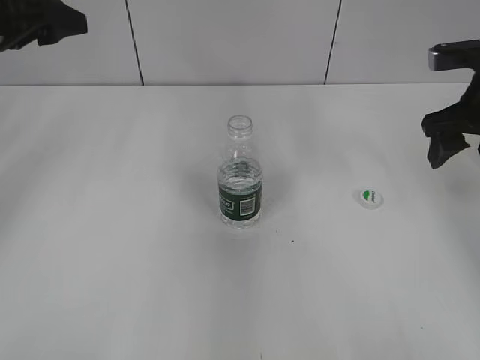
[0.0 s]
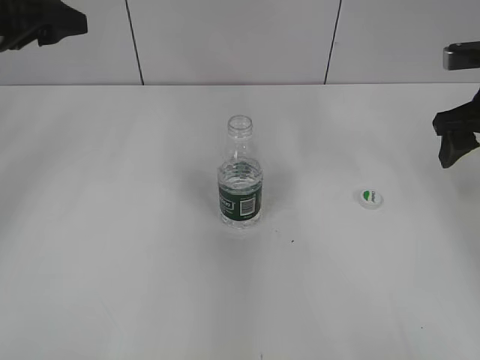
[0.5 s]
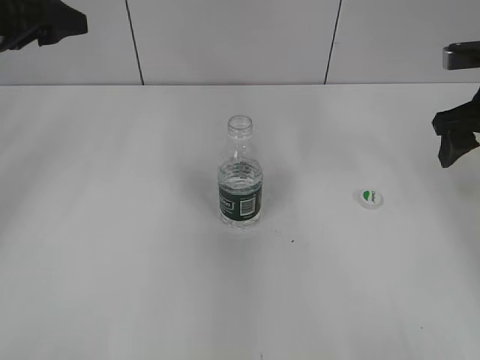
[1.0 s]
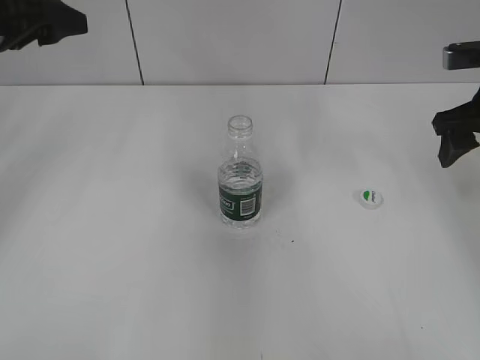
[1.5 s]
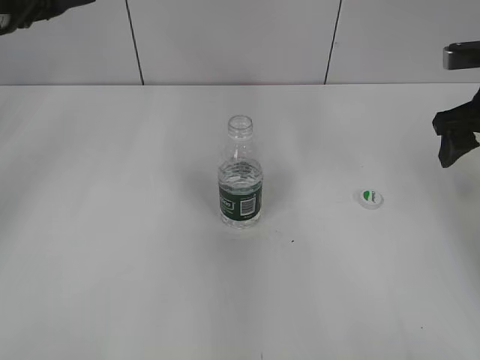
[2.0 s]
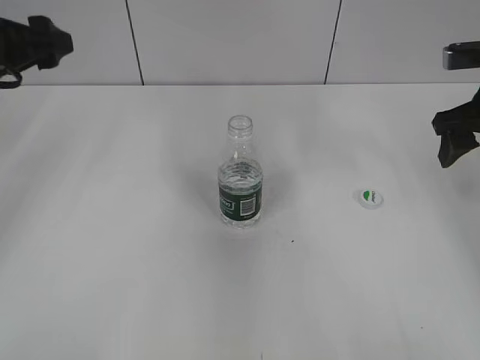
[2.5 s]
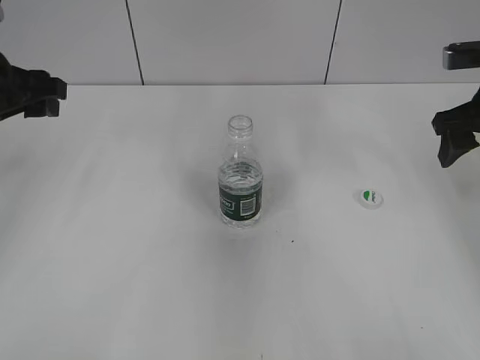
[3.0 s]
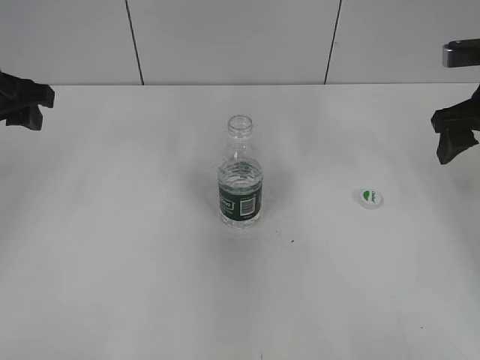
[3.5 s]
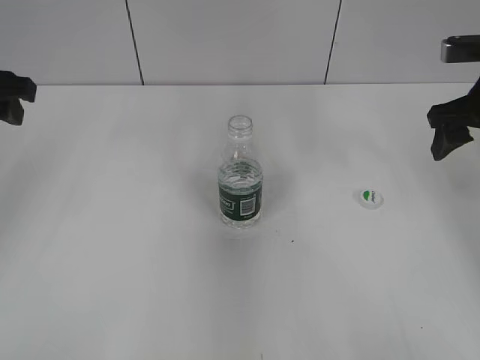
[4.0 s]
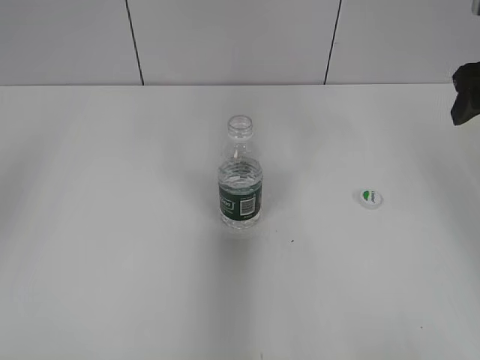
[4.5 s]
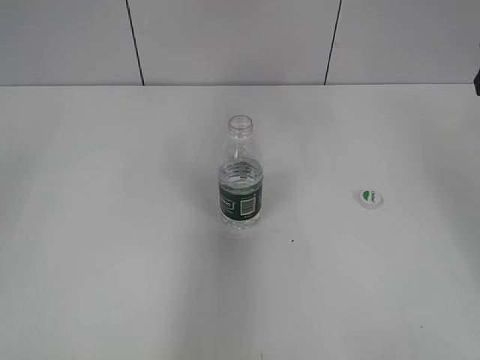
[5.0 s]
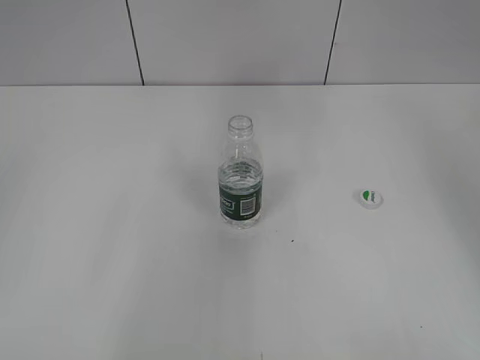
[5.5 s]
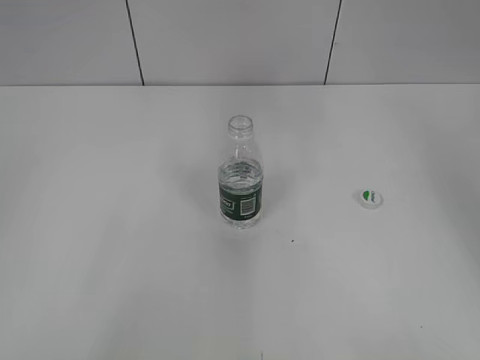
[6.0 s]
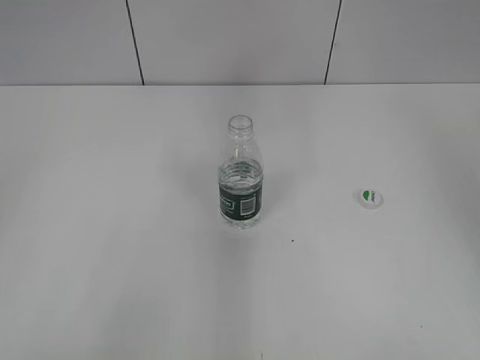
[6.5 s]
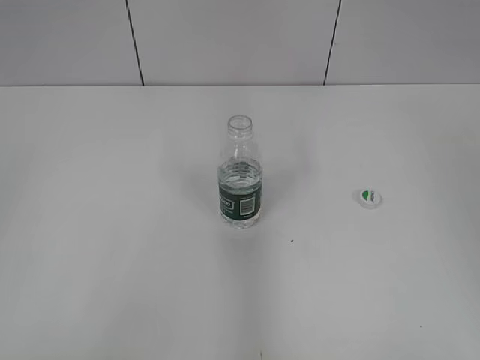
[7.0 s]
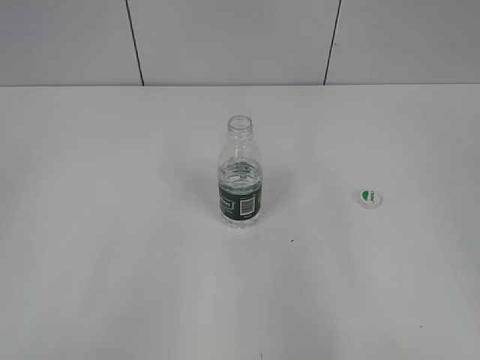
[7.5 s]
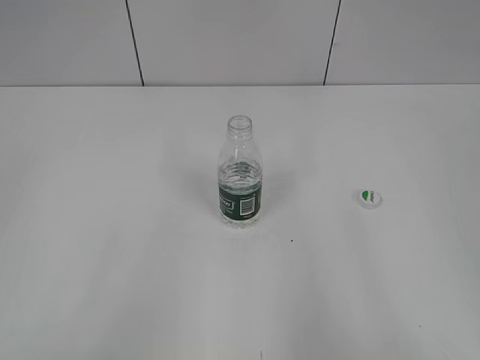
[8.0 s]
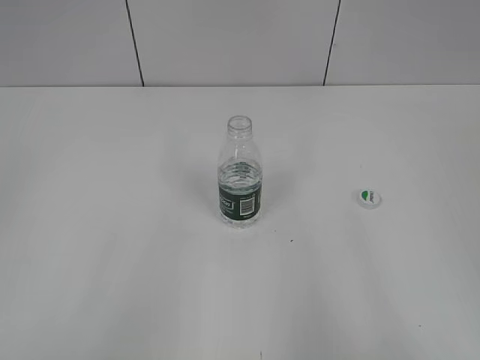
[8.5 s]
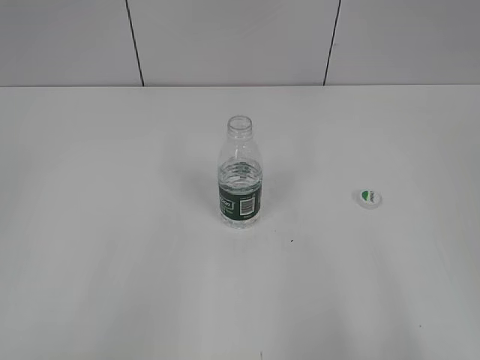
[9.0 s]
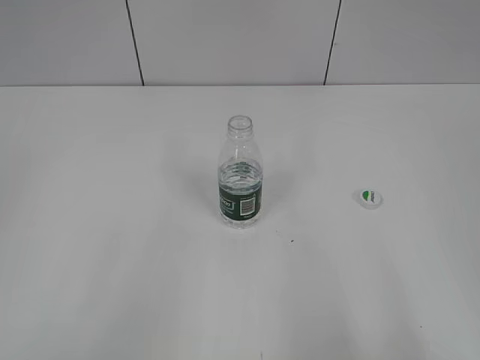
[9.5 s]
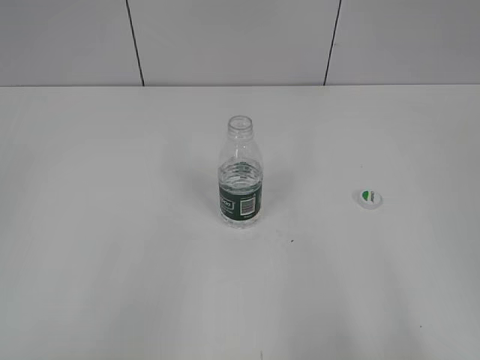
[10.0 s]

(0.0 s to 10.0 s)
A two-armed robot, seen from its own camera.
0.0 s - 2.0 s: There are only small adjustments of the grippers.
2.0 s - 4.0 s: The left gripper ends up some 5 cm from where it was.
4.0 s - 6.0 s: The left gripper goes about 30 cm backward. The right gripper travels upward and backward by about 15 cm.
